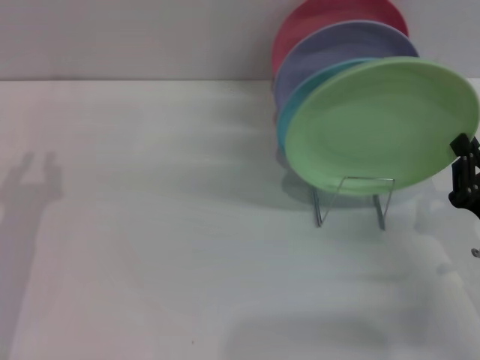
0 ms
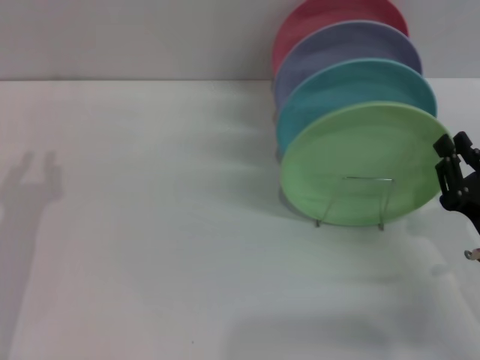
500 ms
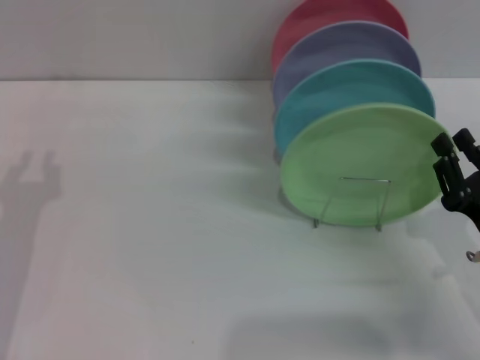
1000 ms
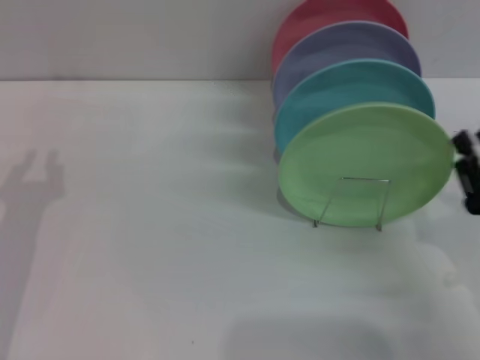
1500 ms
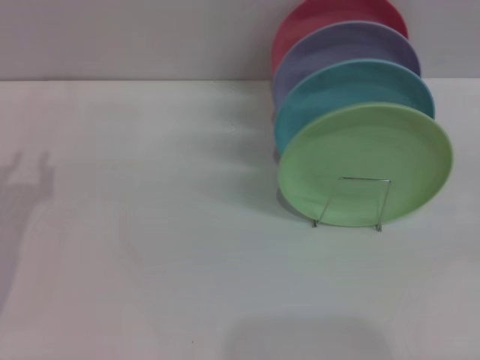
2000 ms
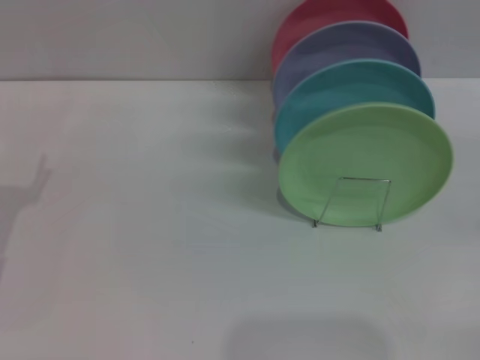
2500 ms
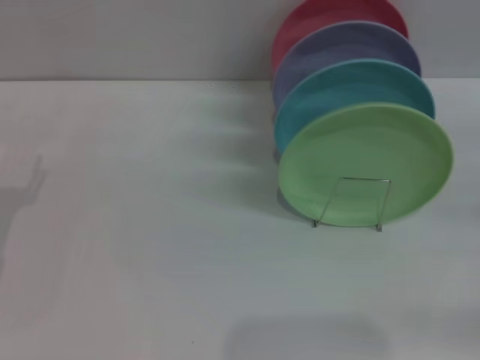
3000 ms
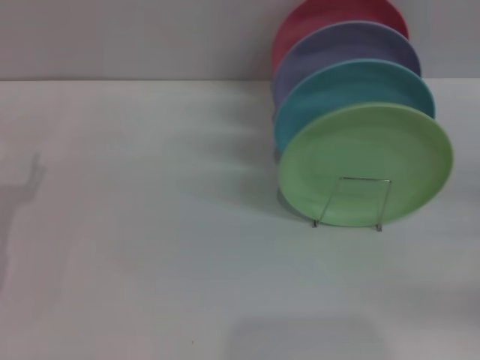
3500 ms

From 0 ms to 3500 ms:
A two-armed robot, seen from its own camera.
Task of the whole recording: Grip the plate with one hand, pass it to the other, then set it on the shelf.
From 0 ms to 2000 ms: The right gripper shifts about 15 cm to the right, and opens.
From 2000 ms to 3500 ms: The right gripper goes some 5 cm forward, and opens up.

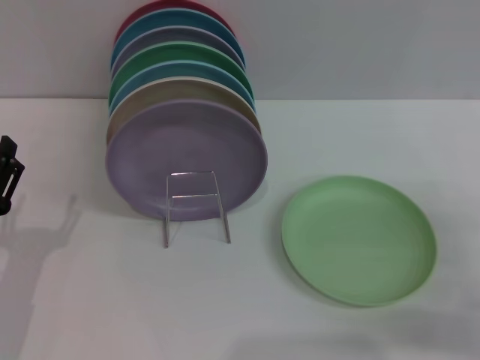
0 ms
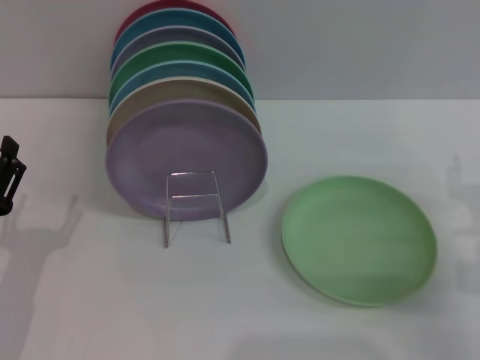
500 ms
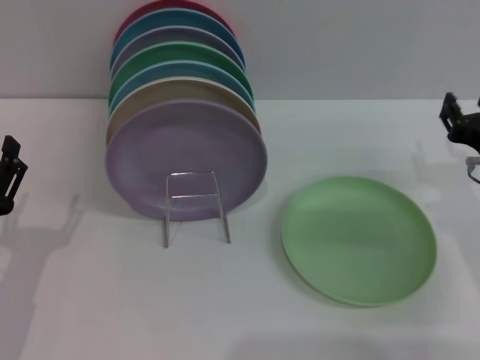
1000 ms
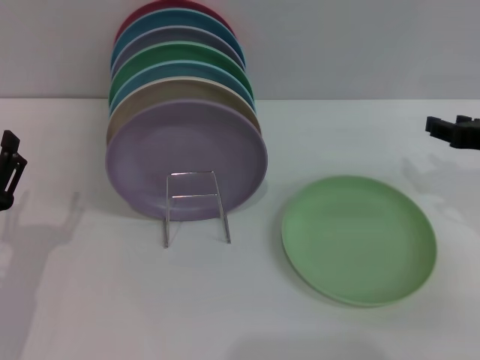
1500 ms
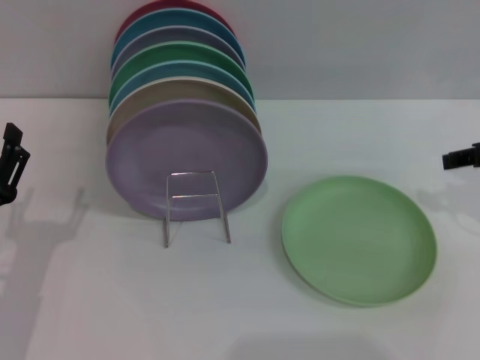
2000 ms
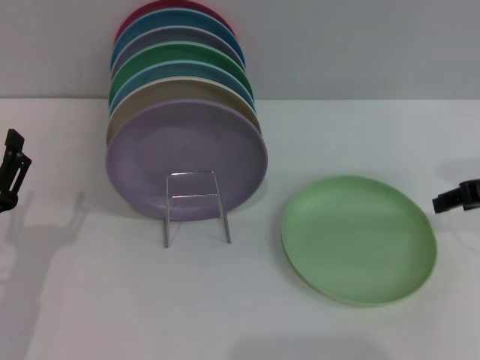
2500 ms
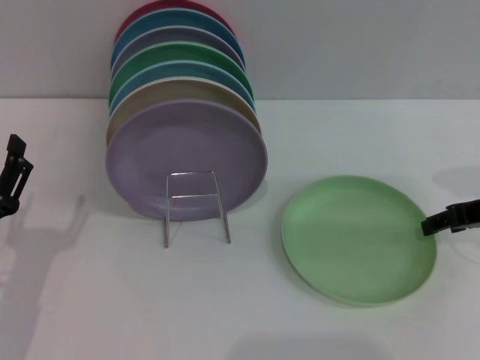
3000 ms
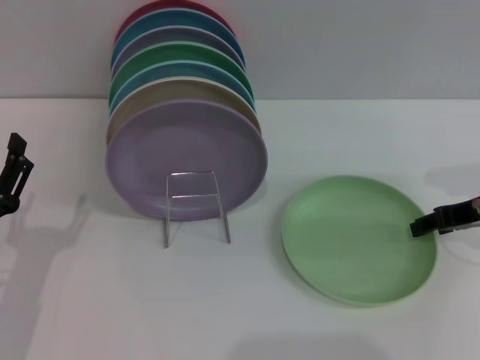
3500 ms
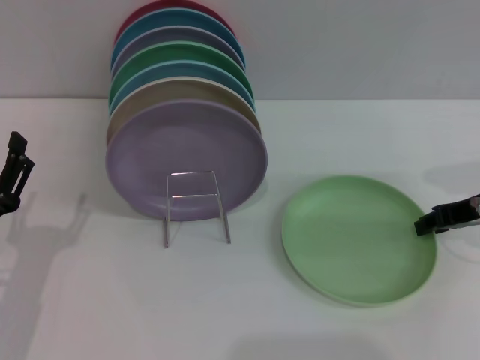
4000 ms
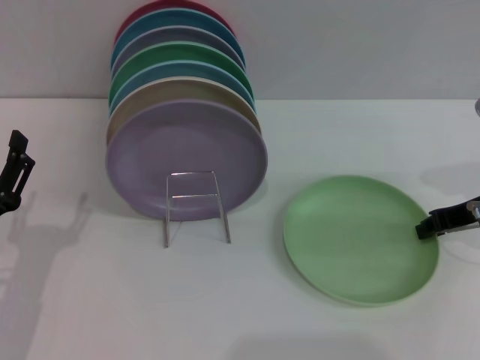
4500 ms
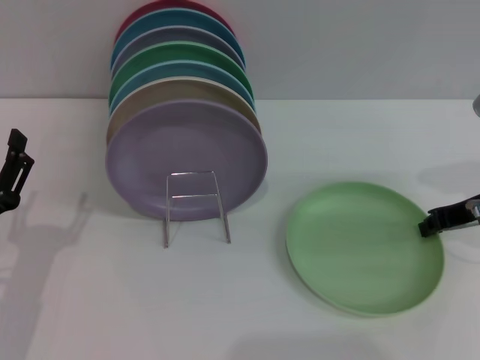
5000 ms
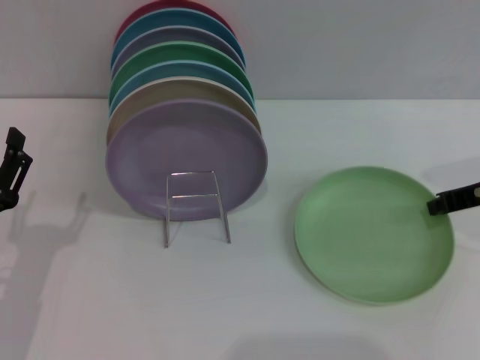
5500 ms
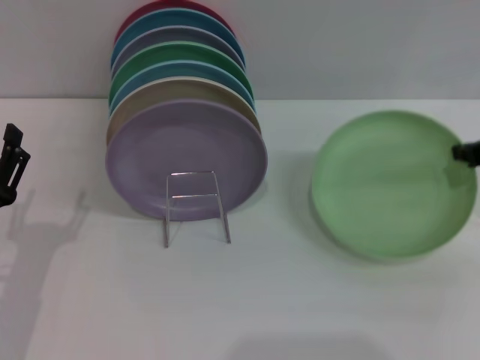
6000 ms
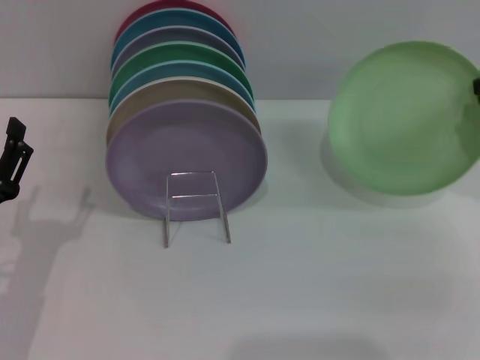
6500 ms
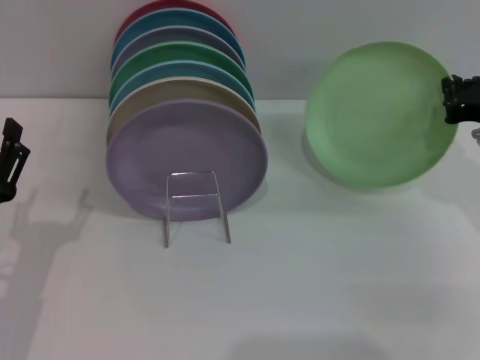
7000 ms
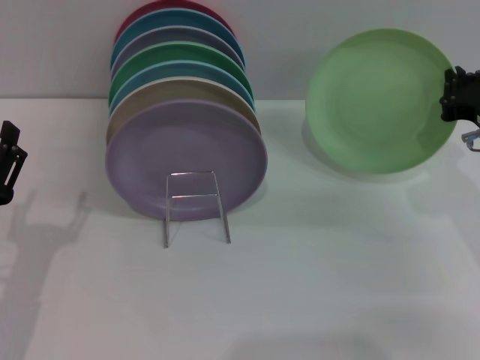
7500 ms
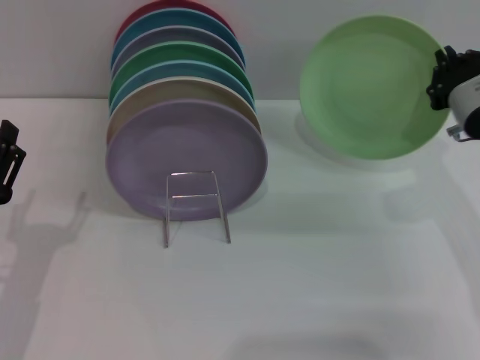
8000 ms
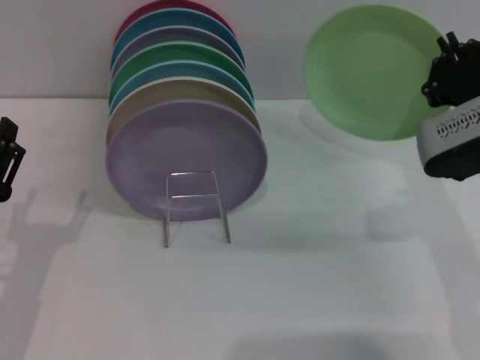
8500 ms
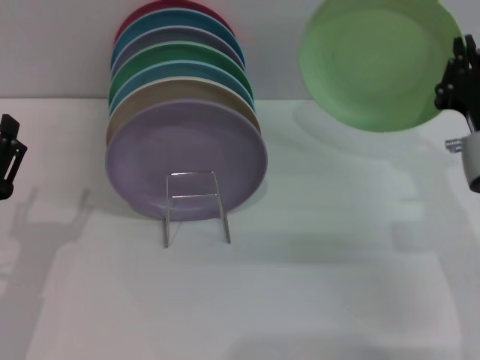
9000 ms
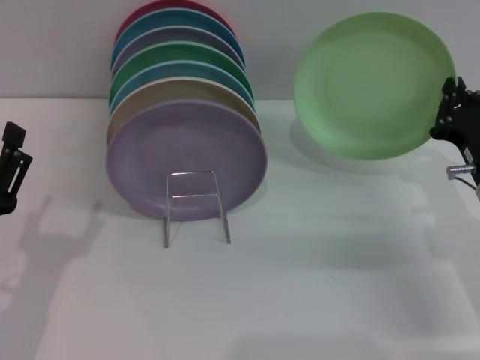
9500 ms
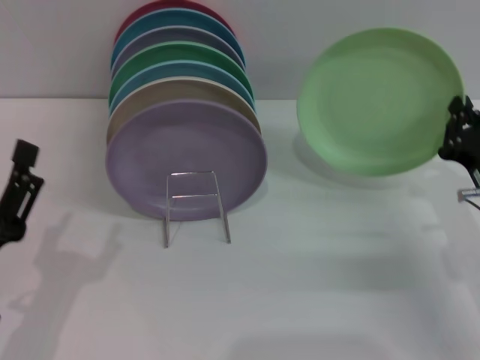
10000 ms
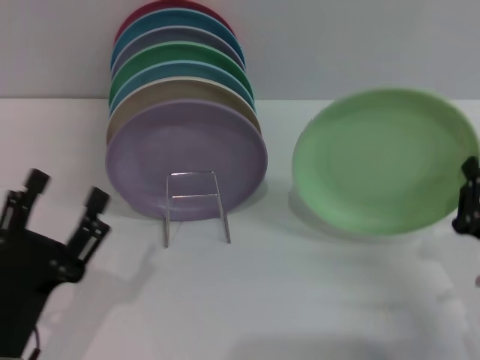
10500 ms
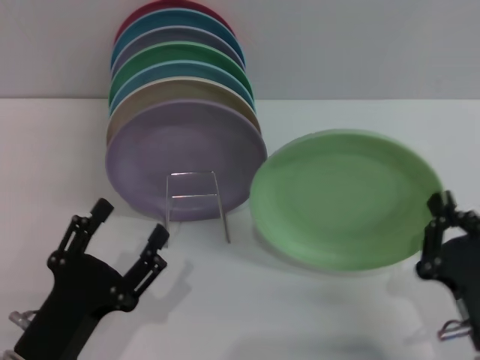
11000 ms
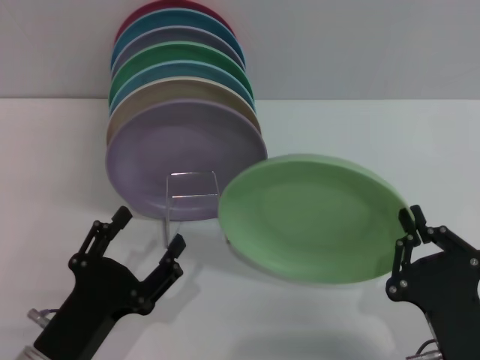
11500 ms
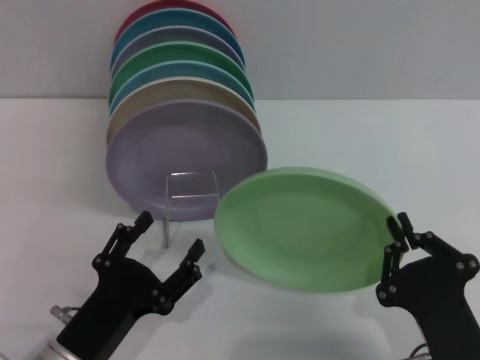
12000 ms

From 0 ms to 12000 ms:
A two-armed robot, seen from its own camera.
Task of the whole recording: Grip the plate with one hand, pass it to the other, then set it on the shelf.
Step, from 0 ms to 5500 ms: Pick up the plate with the right gripper.
From 0 ms to 2000 ms: The right gripper shifts approximately 15 cm upward and forward.
From 2000 ms to 4000 ms: The right gripper goes roughly 5 cm downward.
From 4000 ms to 6000 ms: The right gripper heads upward, covering about 5 cm, and closes.
From 6000 ms to 8000 ms: The right gripper shifts roughly 5 cm to the left.
From 8000 ms to 10000 ms: The right gripper goes approximately 10 cm downward.
From 10000 ms to 12000 ms: The right gripper is displaced backward and to the left by roughly 20 cm. Meanwhile the left gripper is displaced to the right by roughly 5 cm.

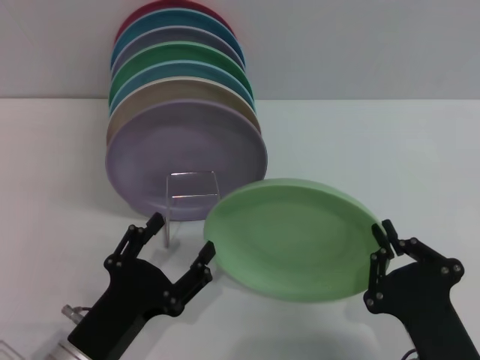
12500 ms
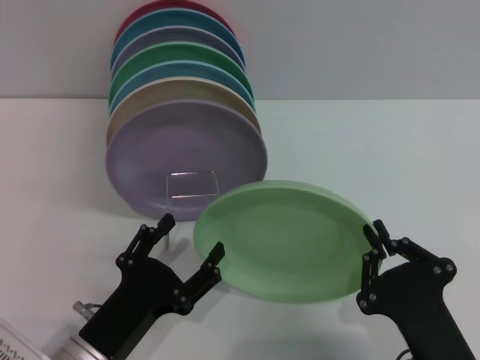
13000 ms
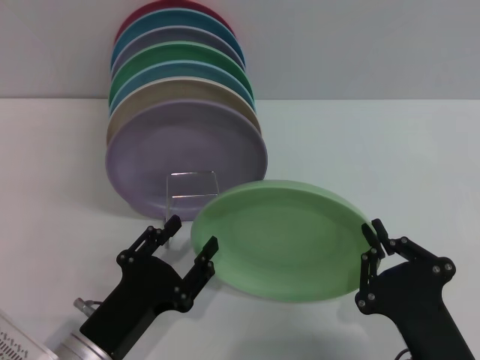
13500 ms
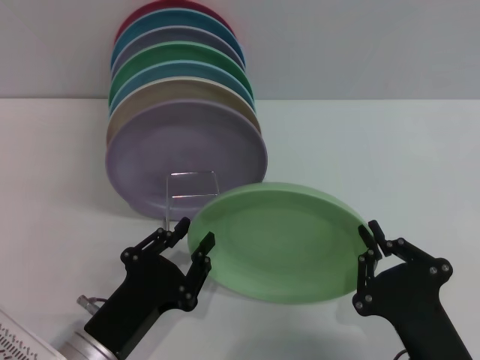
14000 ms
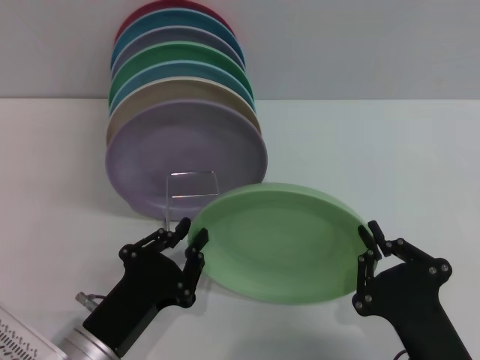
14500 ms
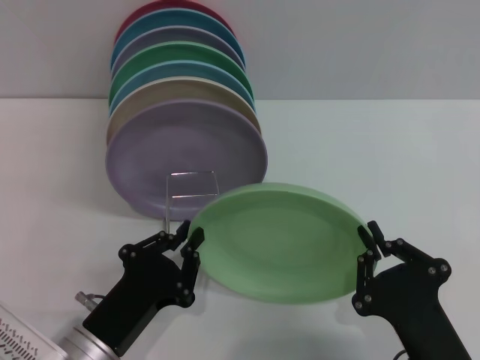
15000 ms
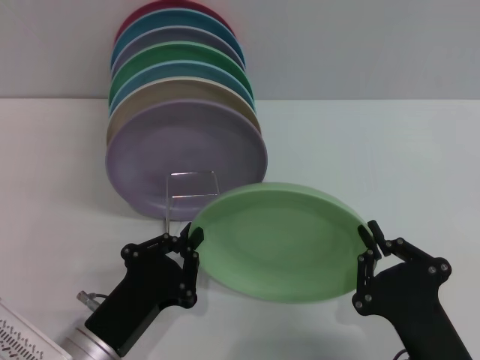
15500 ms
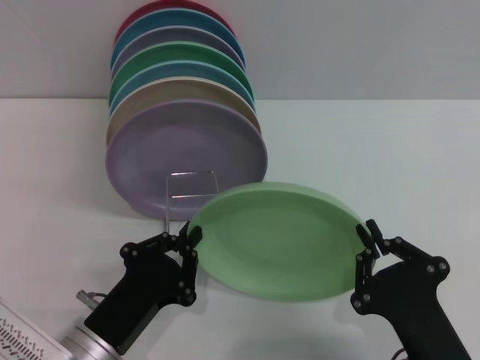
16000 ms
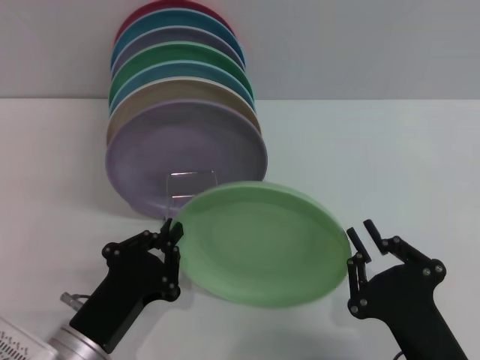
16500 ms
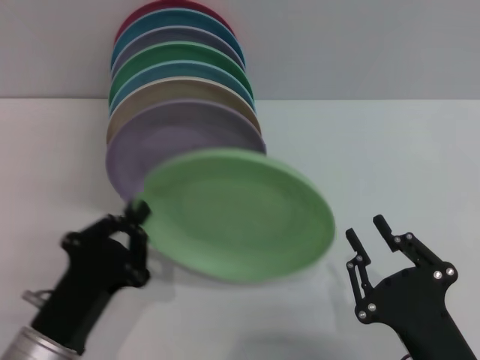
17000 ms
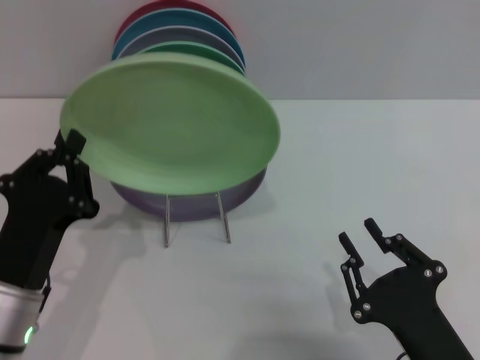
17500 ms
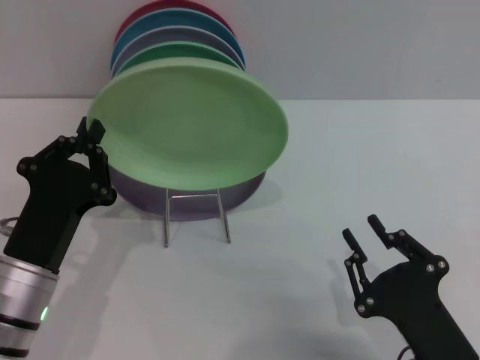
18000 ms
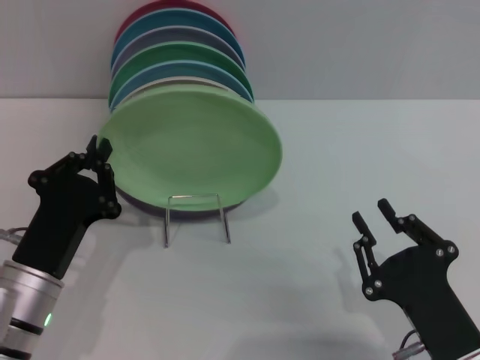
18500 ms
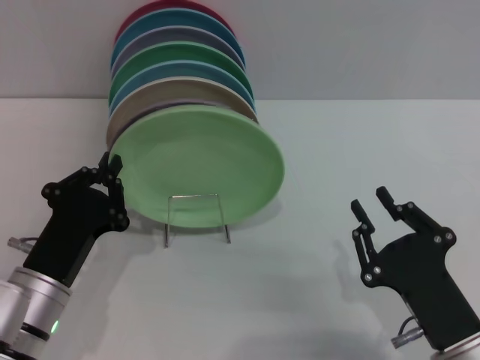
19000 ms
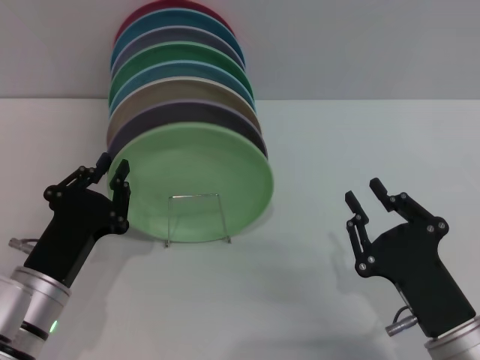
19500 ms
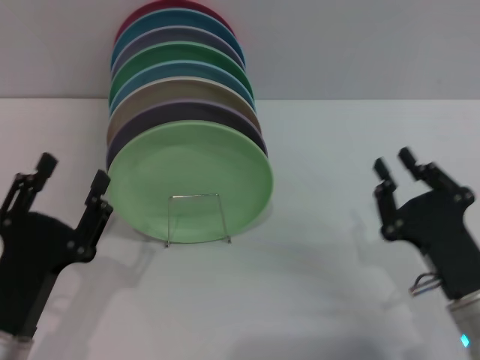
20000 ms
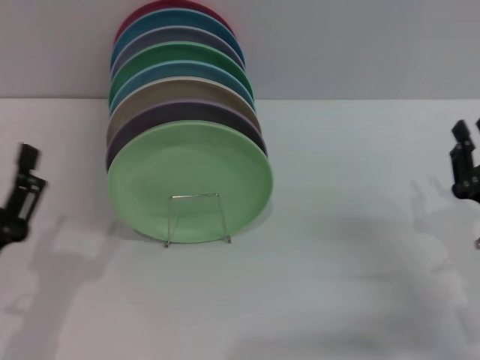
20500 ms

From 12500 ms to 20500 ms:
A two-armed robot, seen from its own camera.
Task of the whole recording: Grip the plate with one hand, pass it to the other, then set it on the shelf.
Step, from 12500 ms to 16500 ms: Pass the plate from the right gripper to the left gripper.
Step, from 17000 ms to 20000 ms: Place the plate on the shelf with the left gripper.
From 12500 ms to 14500 ms: The left gripper closes up.
From 14500 ms to 16500 ms: The two grippers keep their place.
From 16500 ms to 18500 ms: The left gripper changes place by roughly 5 cm. Meanwhile the right gripper opens up.
From 18500 ms to 20500 ms: The left gripper moves backward, roughly 5 cm, and opens its fingers. Meanwhile the right gripper moves to the right and forward, approximately 10 cm.
